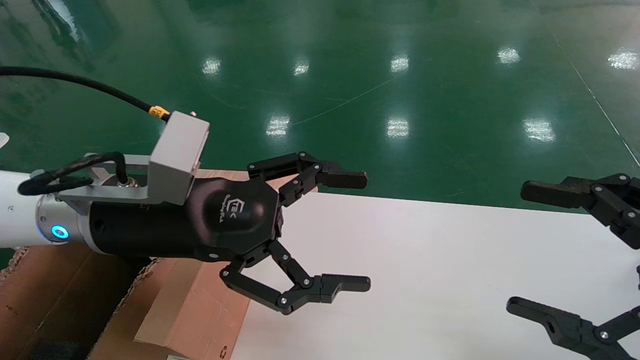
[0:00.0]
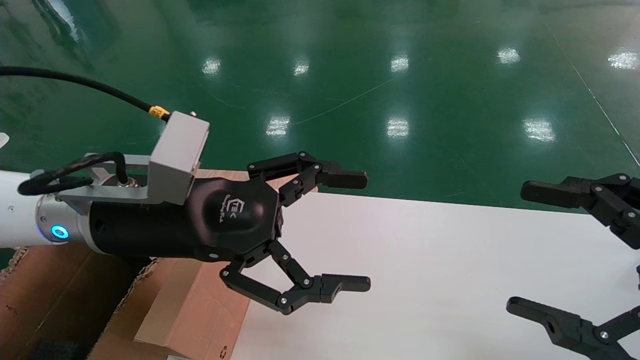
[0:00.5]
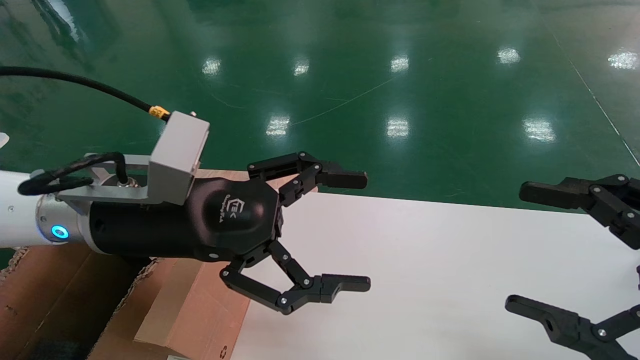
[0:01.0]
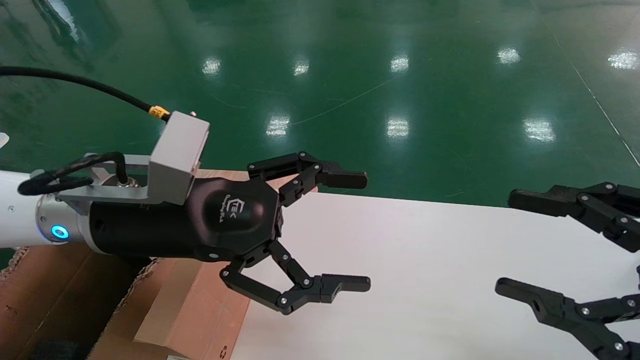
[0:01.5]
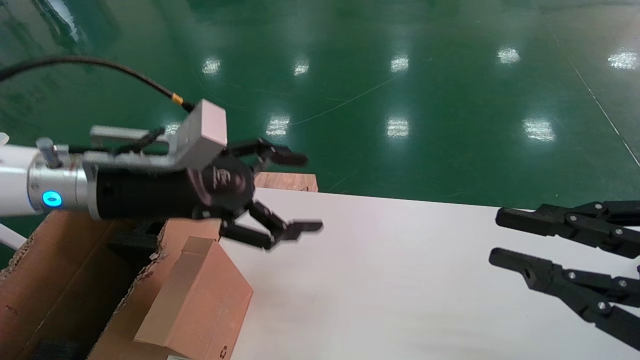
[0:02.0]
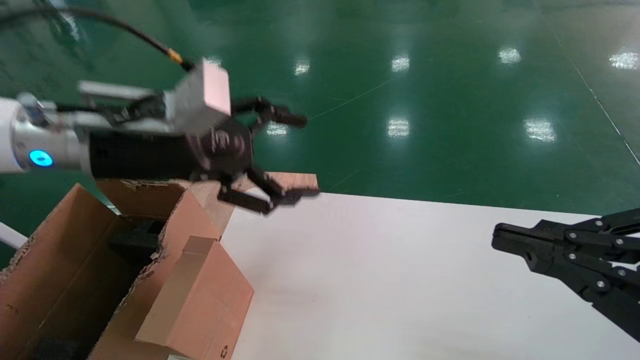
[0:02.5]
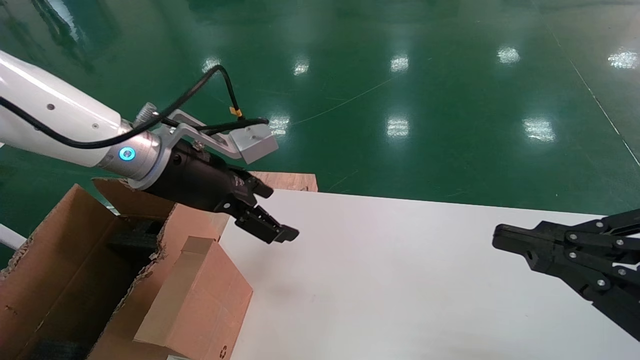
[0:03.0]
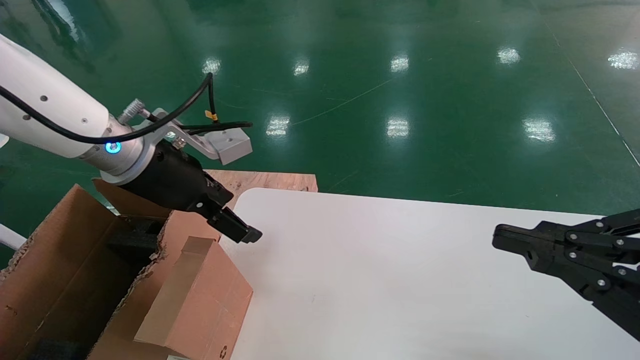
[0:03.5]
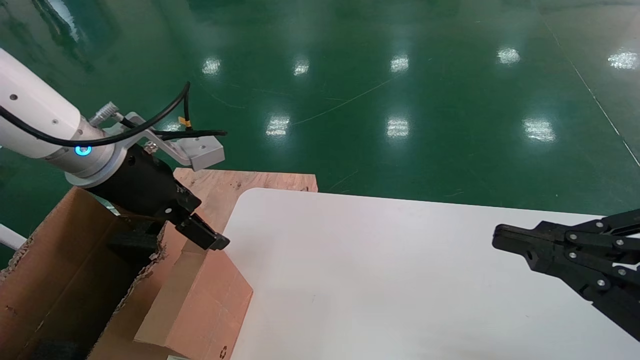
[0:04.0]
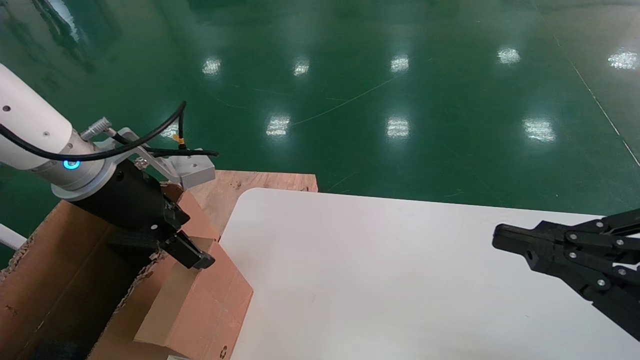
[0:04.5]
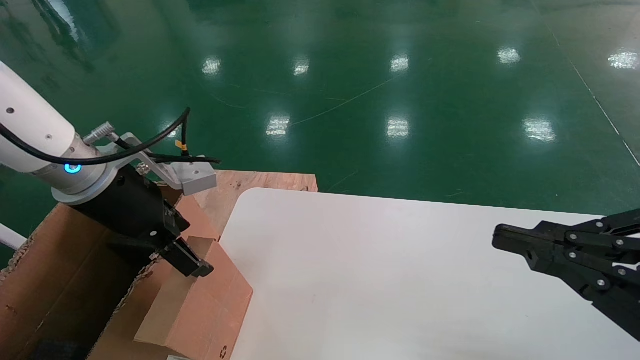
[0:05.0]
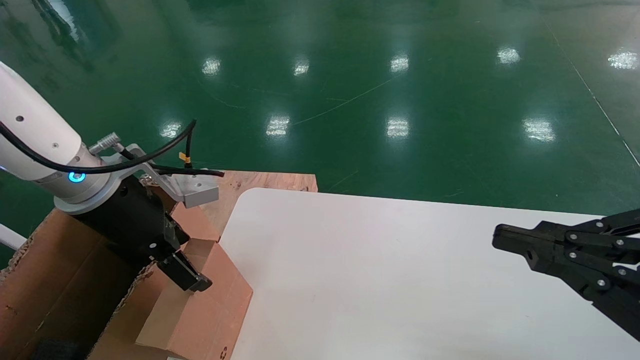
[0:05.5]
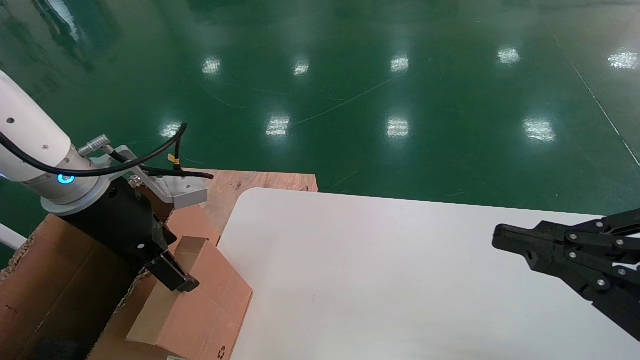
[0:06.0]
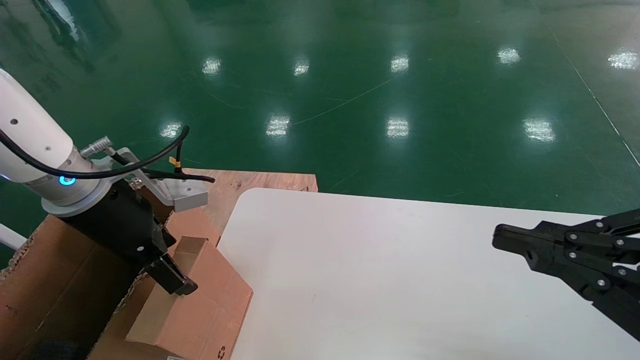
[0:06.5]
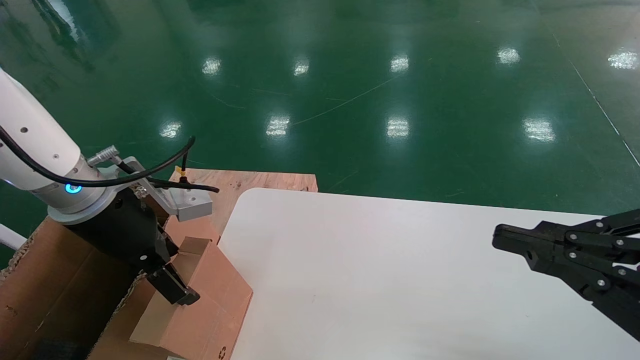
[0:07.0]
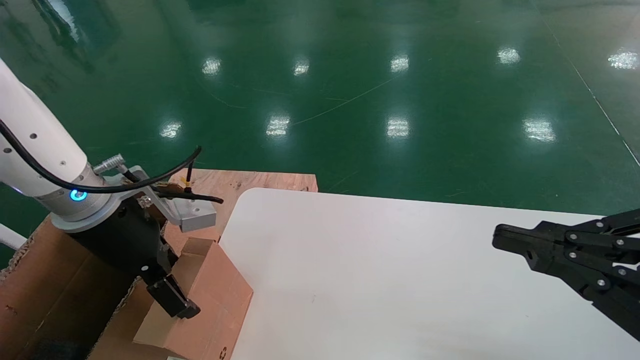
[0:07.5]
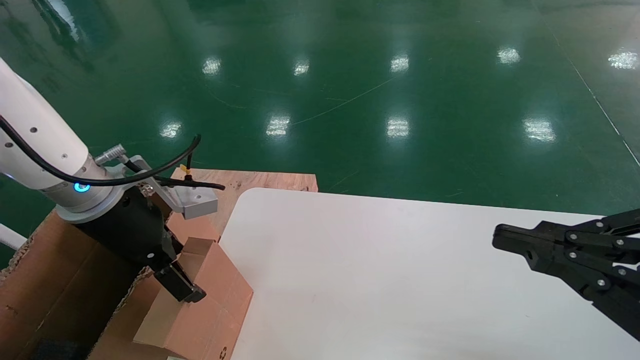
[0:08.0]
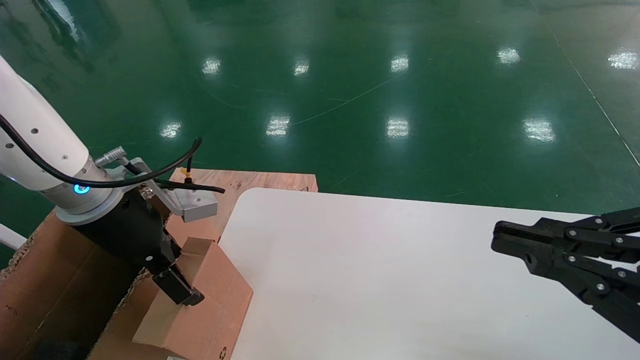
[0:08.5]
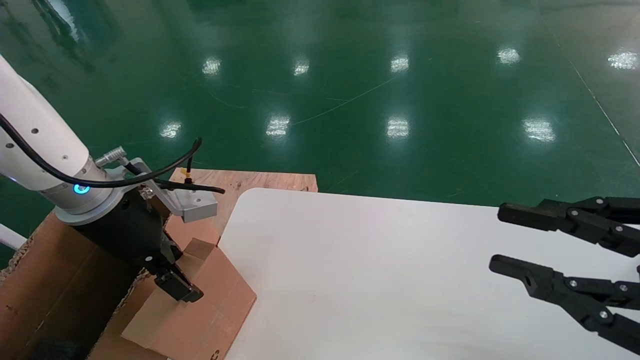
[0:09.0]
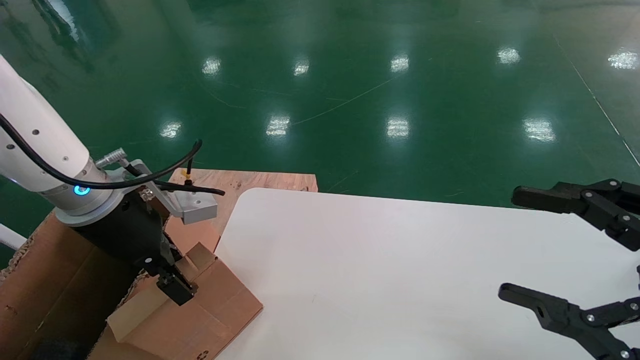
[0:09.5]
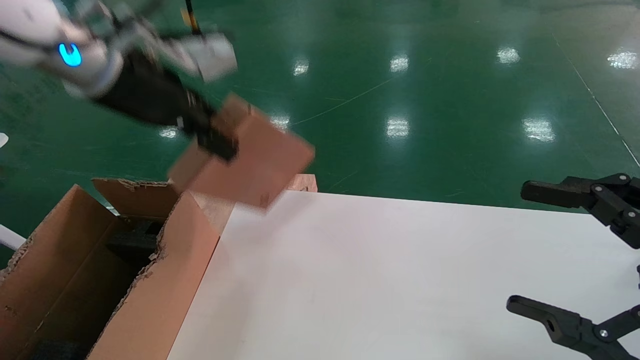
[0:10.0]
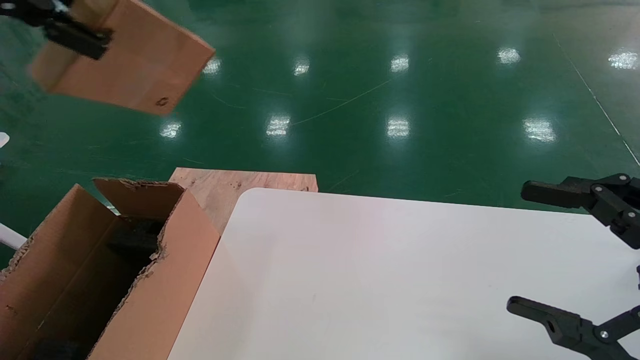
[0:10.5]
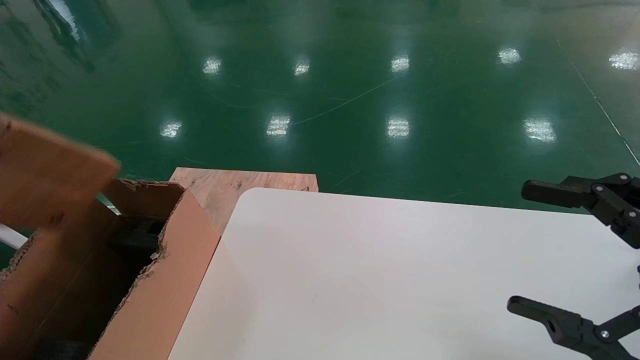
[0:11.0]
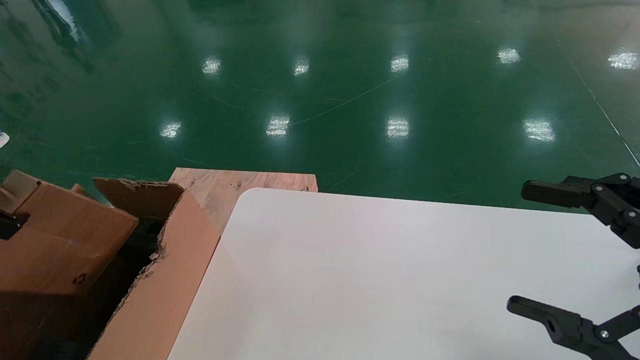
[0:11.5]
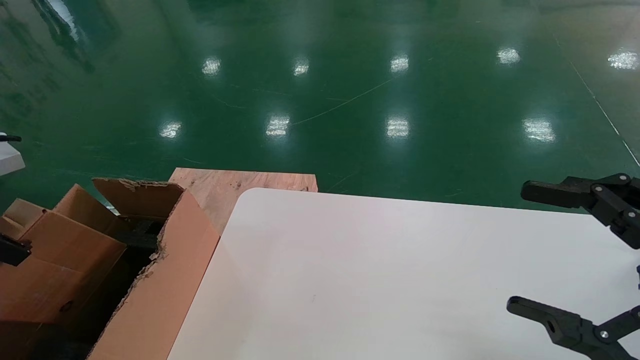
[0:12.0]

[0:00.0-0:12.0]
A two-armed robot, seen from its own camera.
Task of the whole recording: place the small box on the table into the large box on the left.
Step, 0:02.0 to 0:09.5: Pick up the mouse and the power cord paper box.
0:00.0 to 0:02.0: The right gripper closes; the left gripper shifts by some 5 cm.
0:02.0 to 0:04.0: The right gripper closes.
0:04.0 to 0:08.0: The grippers stay close to where they were, moving slightly.
0:08.0 to 0:10.0: The left gripper travels upward by some 15 cm, and closes, while the right gripper opens its fingers.
0:10.0 to 0:12.0: The left gripper travels to the left, backward and downward by about 25 cm.

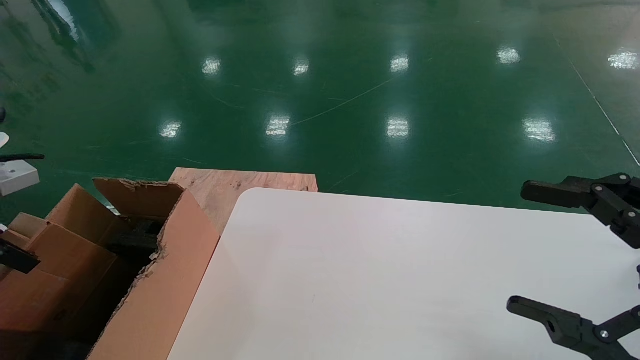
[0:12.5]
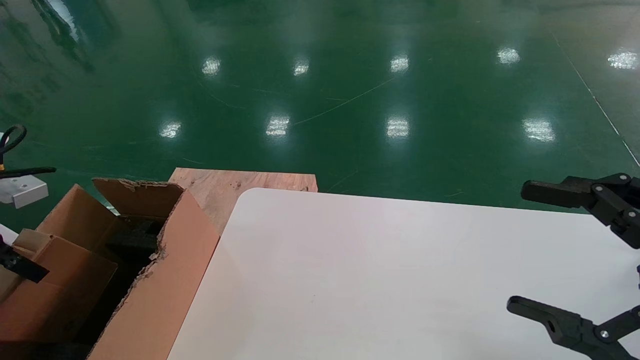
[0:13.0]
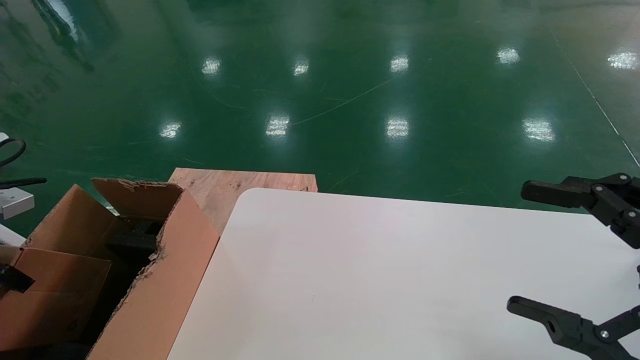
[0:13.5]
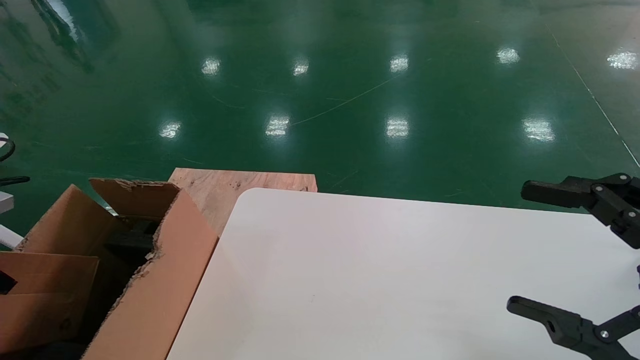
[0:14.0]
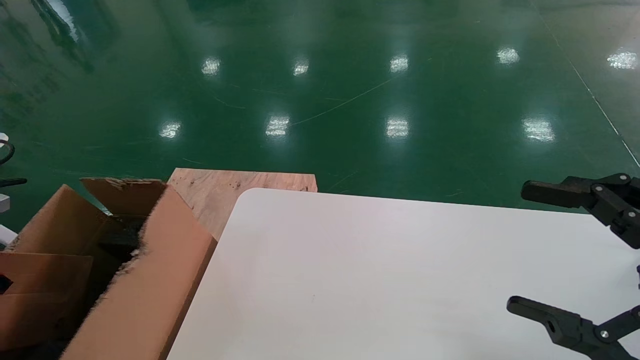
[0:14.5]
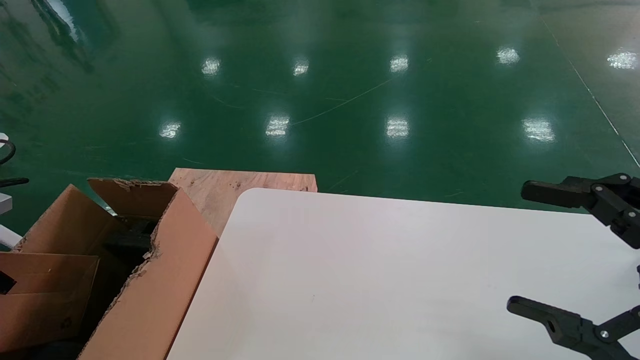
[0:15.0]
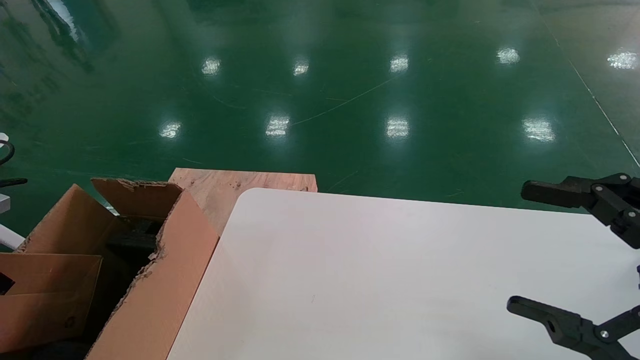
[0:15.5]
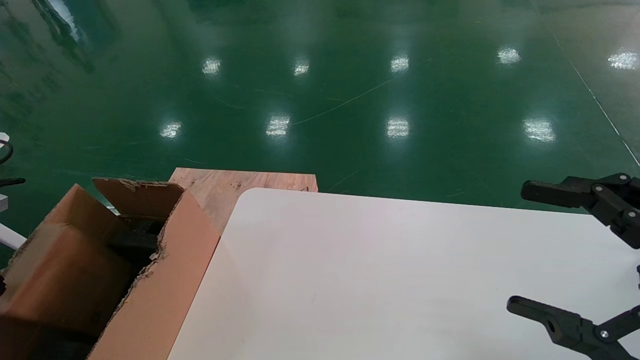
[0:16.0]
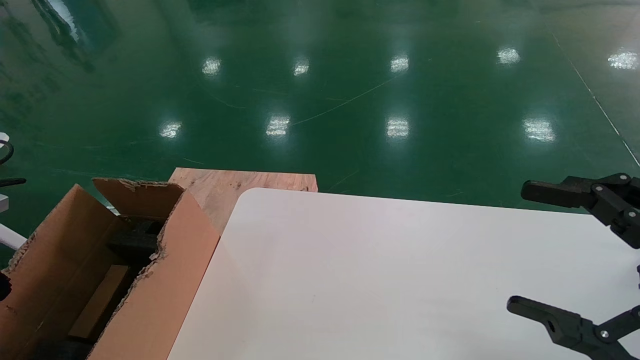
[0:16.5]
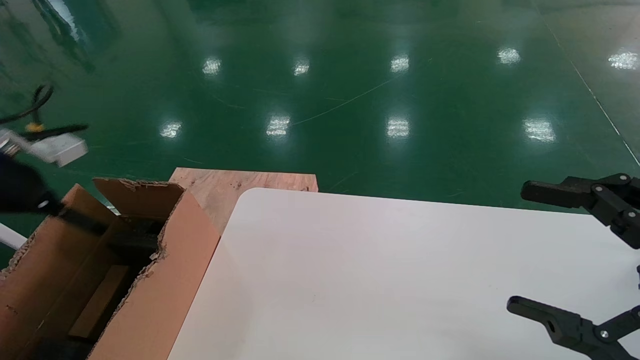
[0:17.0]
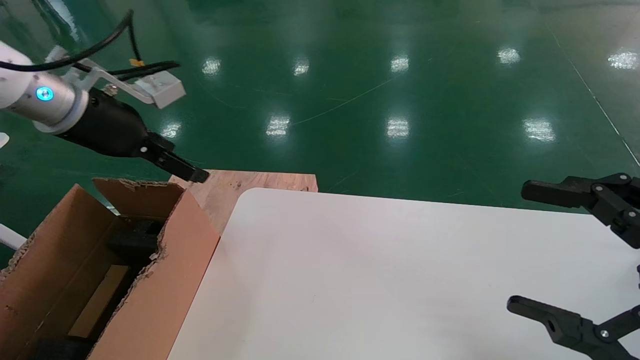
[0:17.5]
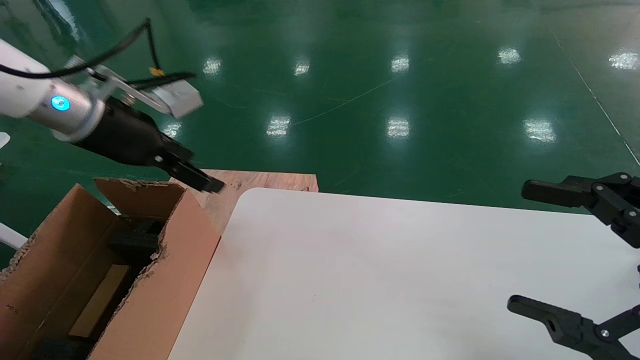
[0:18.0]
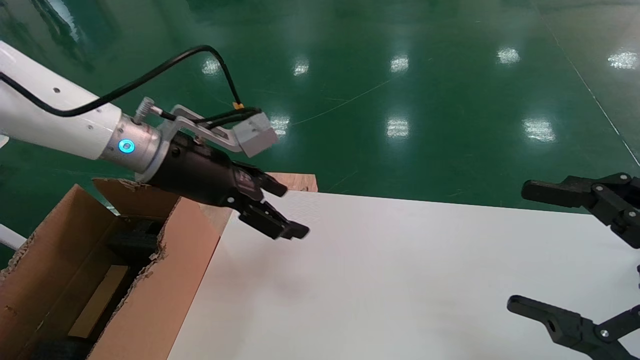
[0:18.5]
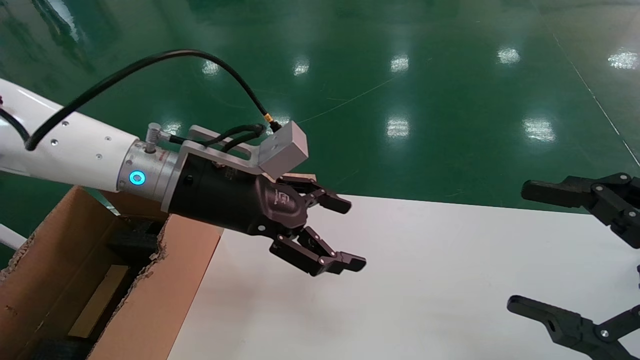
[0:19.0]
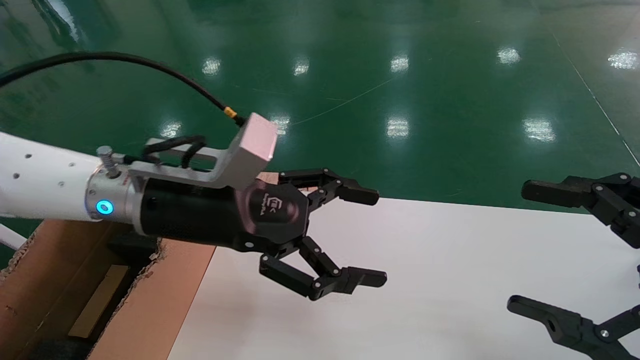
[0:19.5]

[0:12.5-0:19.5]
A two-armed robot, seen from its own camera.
Task of the whole recording: place the small box on the table into the large box on the left.
Step, 0:12.5 to 0:16.0: Place the mouse and the power cord paper box into the container.
0:12.5 to 0:14.5: The left gripper is displaced to the left and downward by approximately 10 cm.
0:14.5 to 0:16.0: The left gripper opens its fingers.
0:16.0 to 0:17.5: The left gripper moves to the right, upward and forward, approximately 25 cm, and opens.
0:17.5 to 0:19.5: The left gripper is displaced to the right by some 20 cm.
